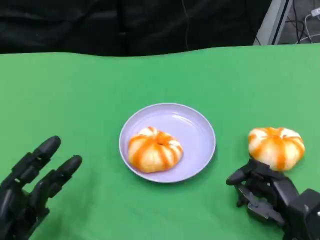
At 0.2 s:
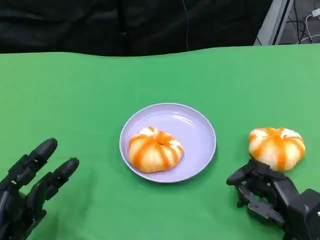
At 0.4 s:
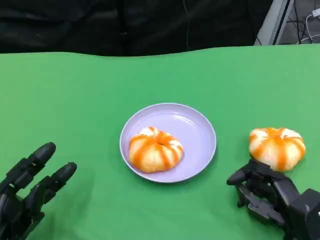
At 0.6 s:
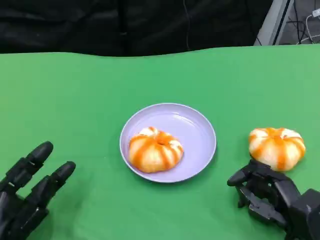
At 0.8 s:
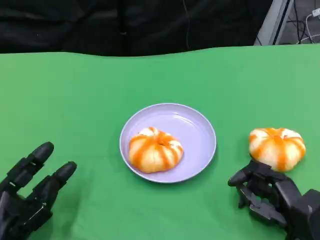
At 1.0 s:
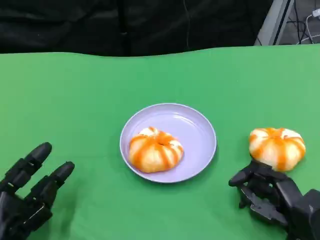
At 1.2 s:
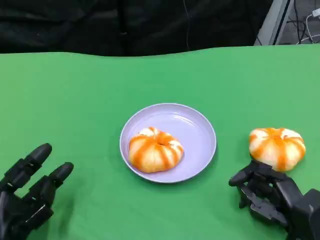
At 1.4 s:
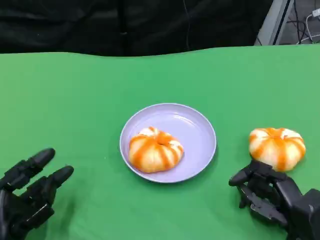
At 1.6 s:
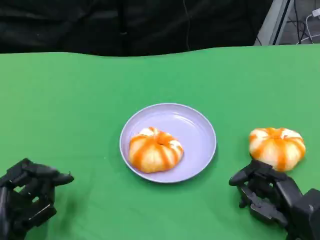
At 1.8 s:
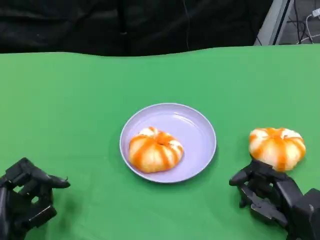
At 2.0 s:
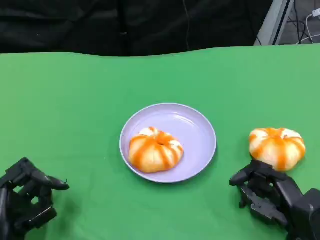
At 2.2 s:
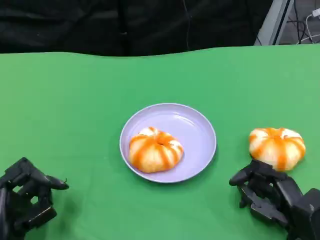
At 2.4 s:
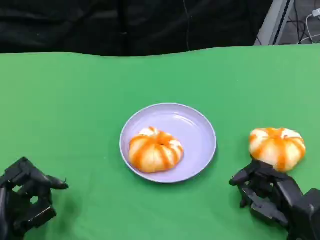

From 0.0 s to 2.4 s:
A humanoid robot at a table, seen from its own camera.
Task of the whole recording: Grasp the bread from the table and place it into the plate.
From 0.0 s to 2.4 s: The hands move only a little.

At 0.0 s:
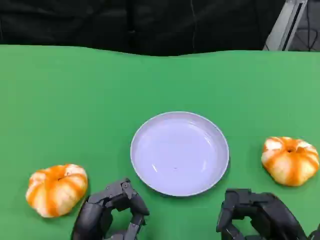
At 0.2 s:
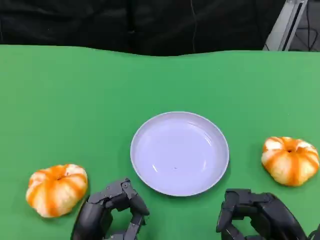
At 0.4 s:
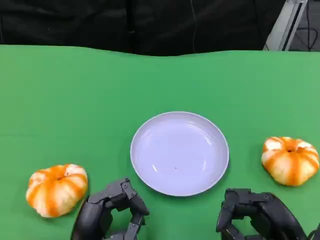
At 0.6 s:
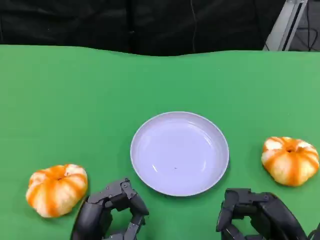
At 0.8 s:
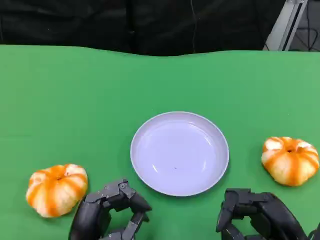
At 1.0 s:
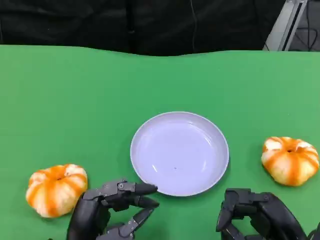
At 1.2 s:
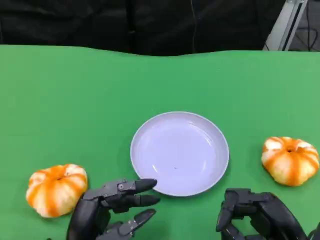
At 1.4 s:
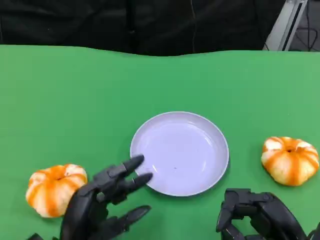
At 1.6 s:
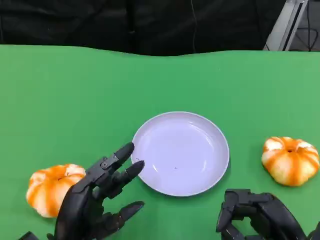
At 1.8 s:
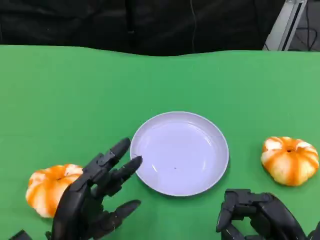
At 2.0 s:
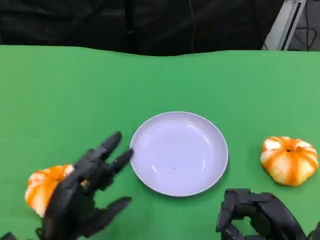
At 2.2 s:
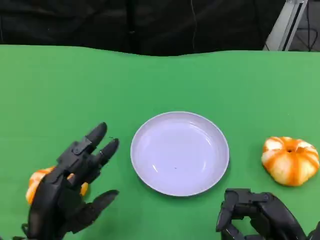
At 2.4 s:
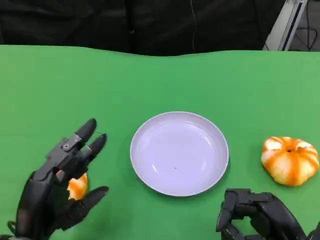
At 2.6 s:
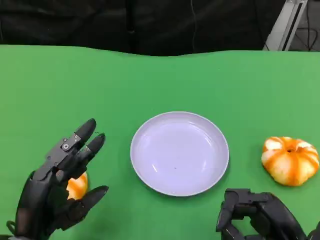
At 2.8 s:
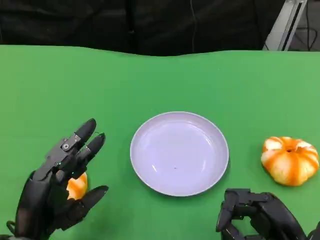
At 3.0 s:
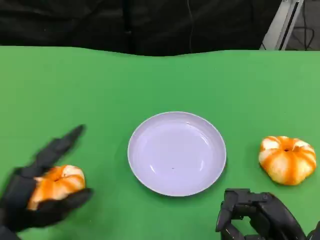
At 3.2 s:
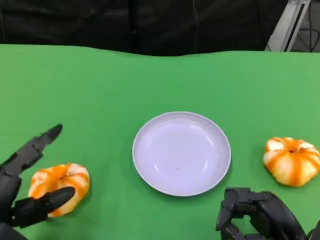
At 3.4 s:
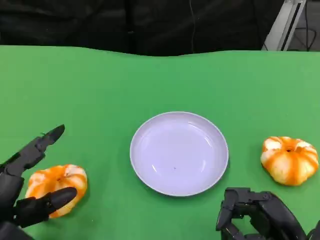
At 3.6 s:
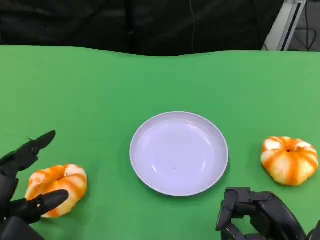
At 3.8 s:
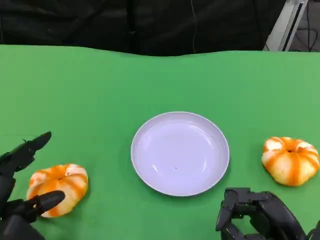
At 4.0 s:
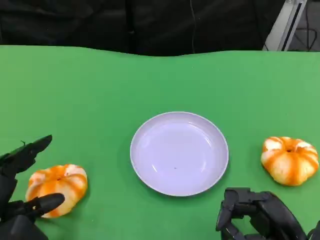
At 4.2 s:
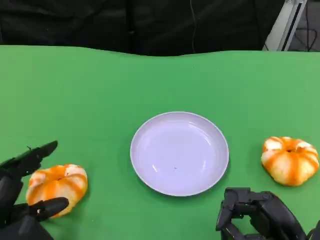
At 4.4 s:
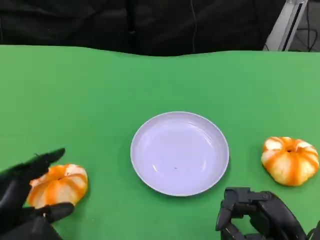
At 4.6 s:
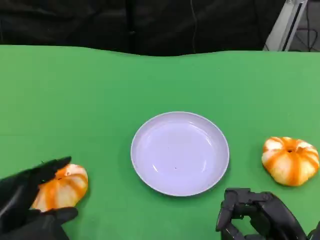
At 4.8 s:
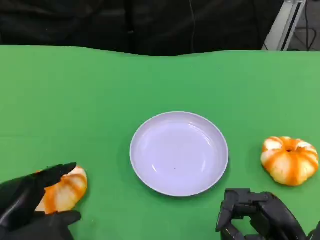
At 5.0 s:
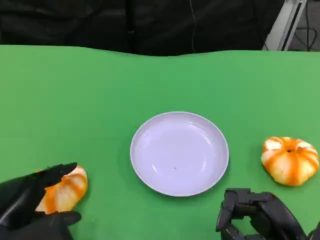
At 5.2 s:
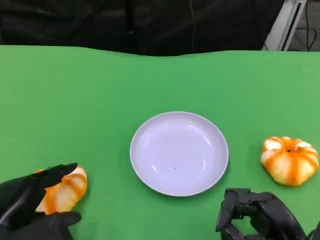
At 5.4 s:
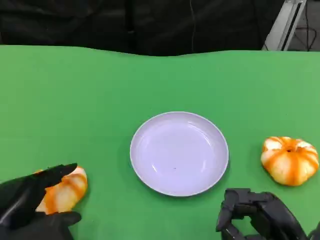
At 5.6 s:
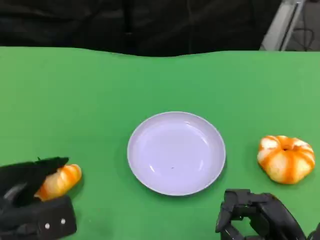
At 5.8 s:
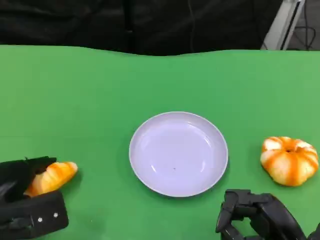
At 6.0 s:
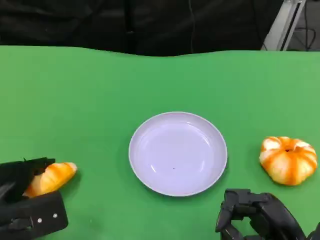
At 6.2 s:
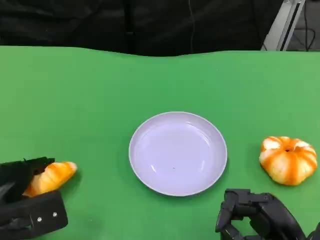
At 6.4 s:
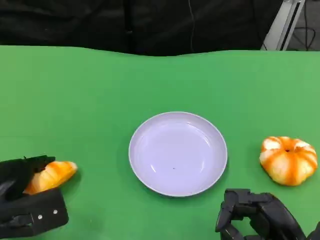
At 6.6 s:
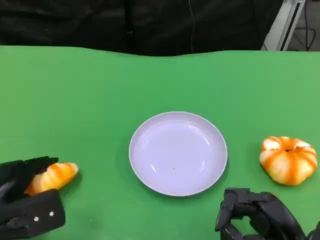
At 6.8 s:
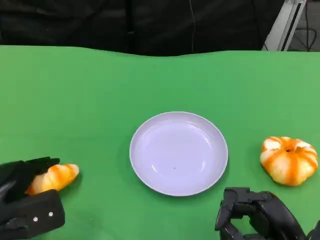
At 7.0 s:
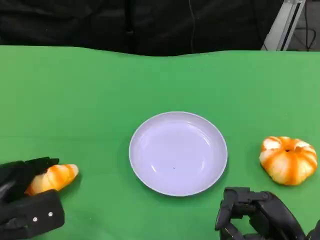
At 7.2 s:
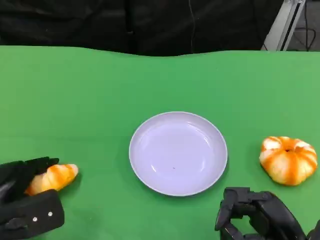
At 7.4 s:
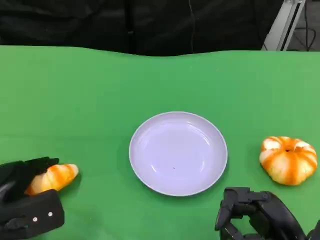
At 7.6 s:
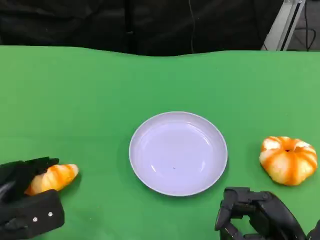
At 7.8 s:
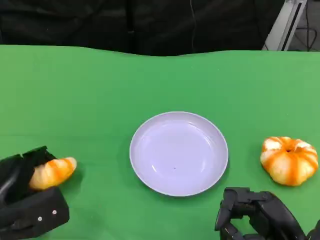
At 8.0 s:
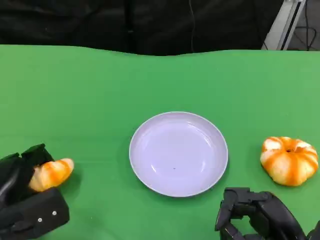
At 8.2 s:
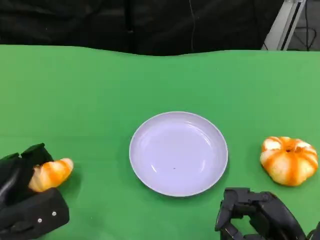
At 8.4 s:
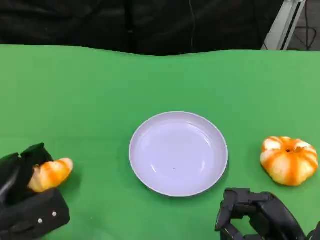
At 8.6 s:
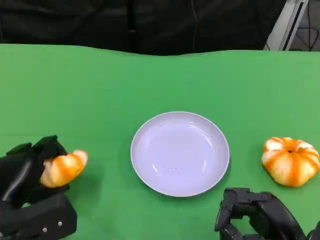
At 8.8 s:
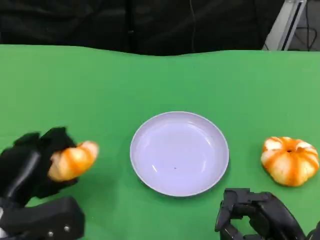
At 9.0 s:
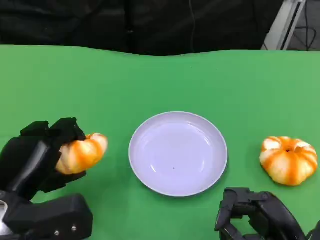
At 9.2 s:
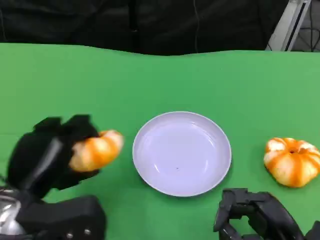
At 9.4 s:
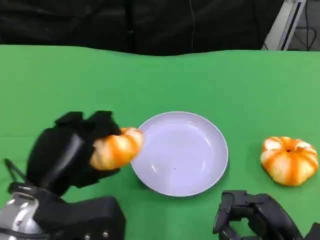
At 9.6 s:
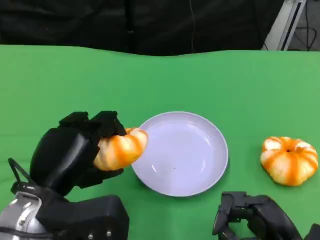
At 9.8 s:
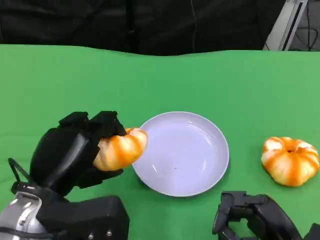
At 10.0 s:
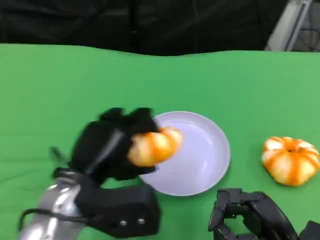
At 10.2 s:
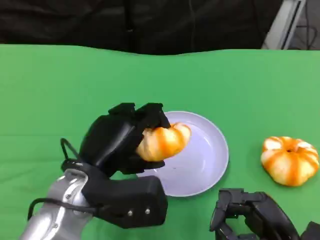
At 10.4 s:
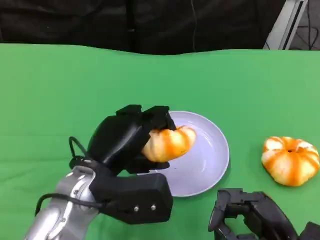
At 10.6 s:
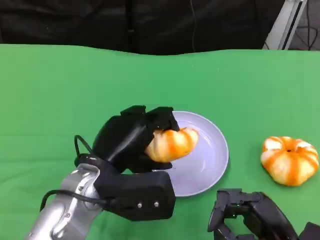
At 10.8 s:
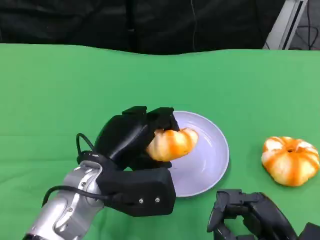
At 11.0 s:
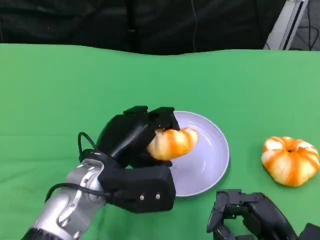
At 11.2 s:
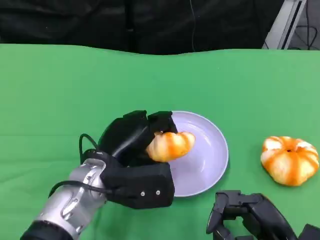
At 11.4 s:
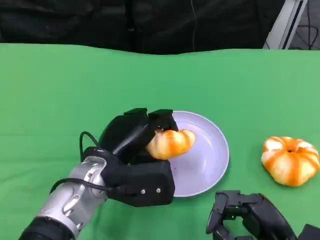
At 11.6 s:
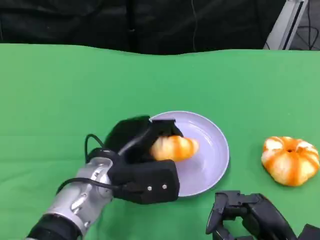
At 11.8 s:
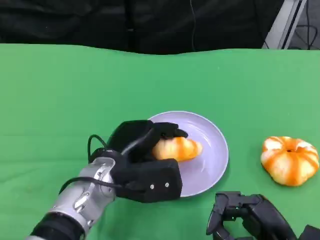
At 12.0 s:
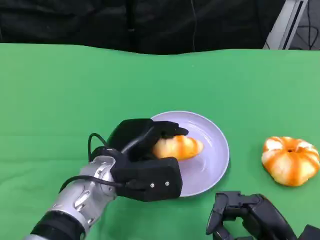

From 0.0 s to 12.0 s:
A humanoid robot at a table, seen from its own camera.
Task of the whole recording: Grasp the bread from the table and place it into the plate.
From 0.0 s to 1.6 s: The hands make only small movements.
From 1.6 s to 3.0 s: The left hand shifts roughly 10 cm to the left and upward.
From 4.4 s to 6.0 s: The left hand heads forward, covering about 5 cm.
From 6.0 s to 7.6 s: There are only small adjustments of the hands.
From 7.6 s to 9.0 s: The left hand is displaced upward by approximately 5 cm.
From 9.0 s to 10.4 s: The left hand travels to the right by roughly 10 cm.
From 10.4 s to 12.0 s: The left hand changes place by about 5 cm.

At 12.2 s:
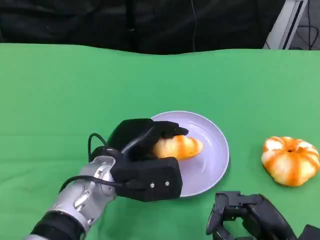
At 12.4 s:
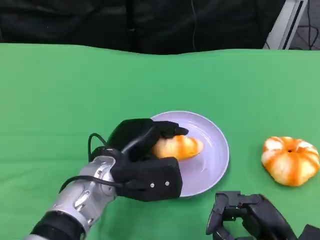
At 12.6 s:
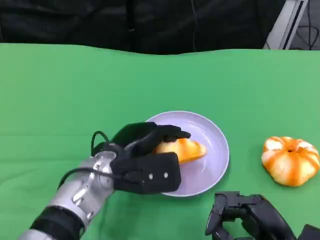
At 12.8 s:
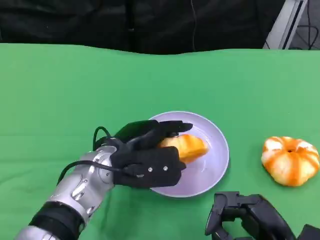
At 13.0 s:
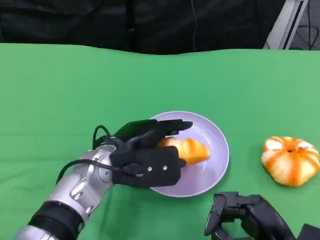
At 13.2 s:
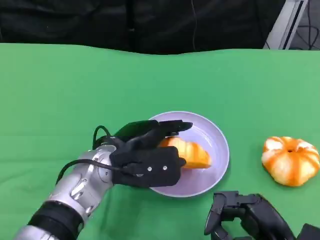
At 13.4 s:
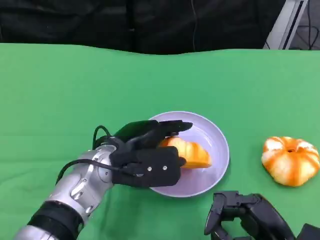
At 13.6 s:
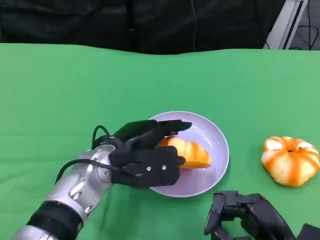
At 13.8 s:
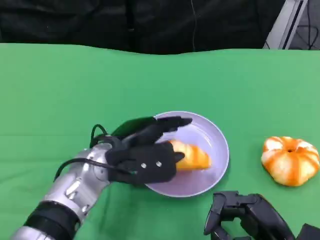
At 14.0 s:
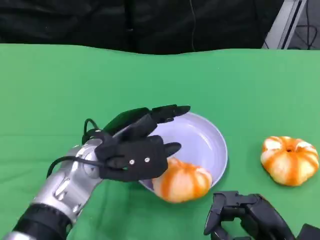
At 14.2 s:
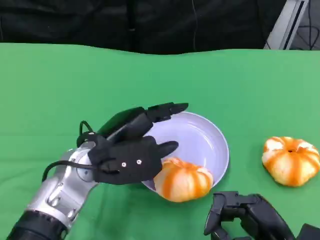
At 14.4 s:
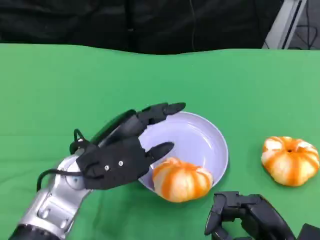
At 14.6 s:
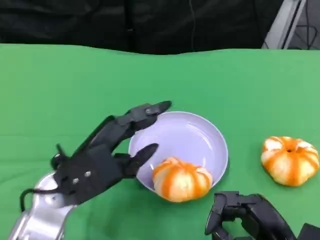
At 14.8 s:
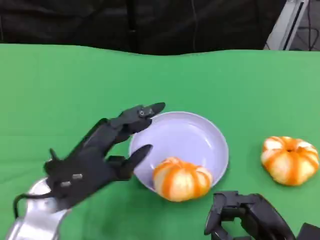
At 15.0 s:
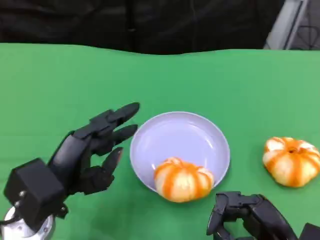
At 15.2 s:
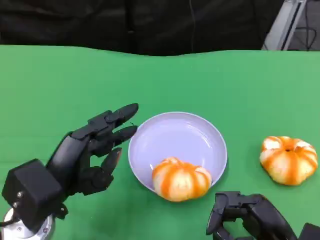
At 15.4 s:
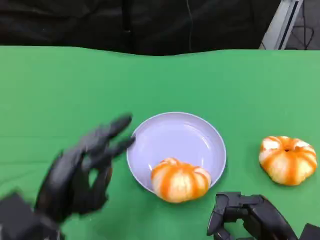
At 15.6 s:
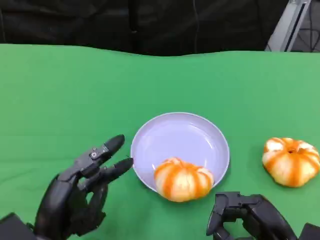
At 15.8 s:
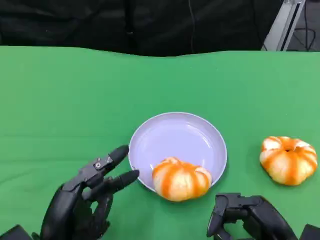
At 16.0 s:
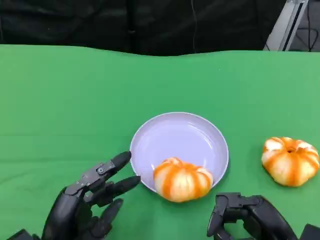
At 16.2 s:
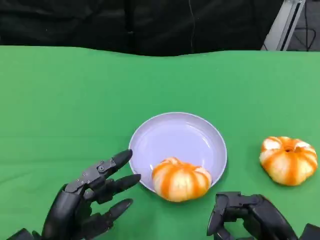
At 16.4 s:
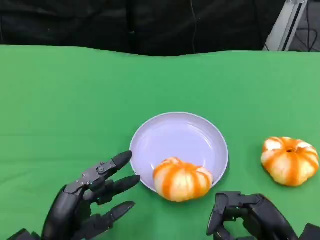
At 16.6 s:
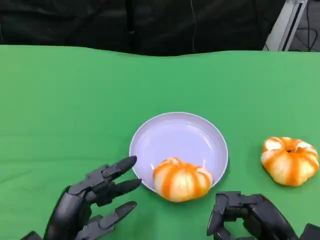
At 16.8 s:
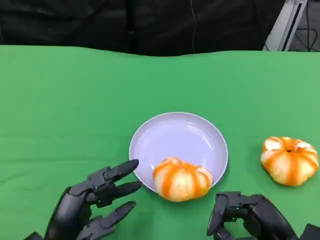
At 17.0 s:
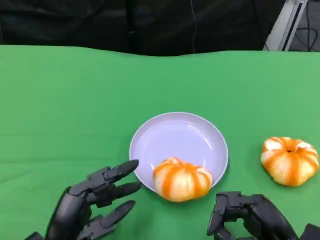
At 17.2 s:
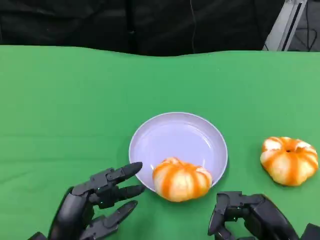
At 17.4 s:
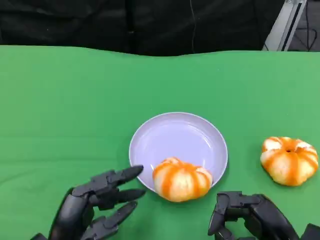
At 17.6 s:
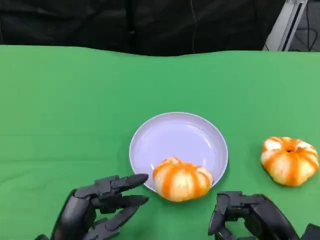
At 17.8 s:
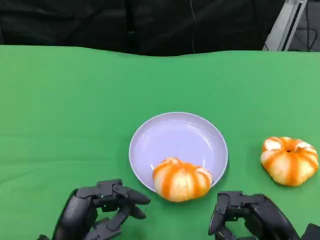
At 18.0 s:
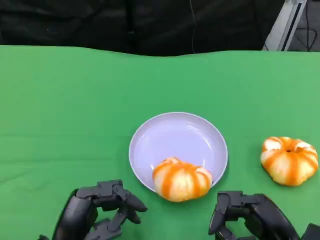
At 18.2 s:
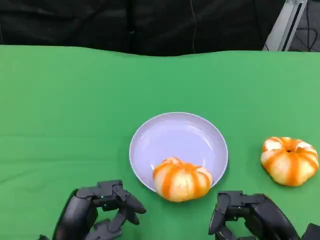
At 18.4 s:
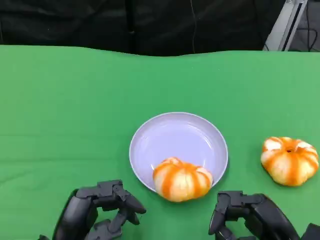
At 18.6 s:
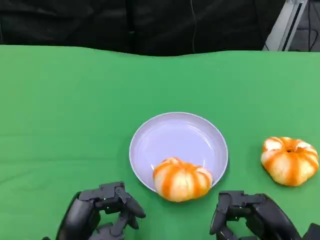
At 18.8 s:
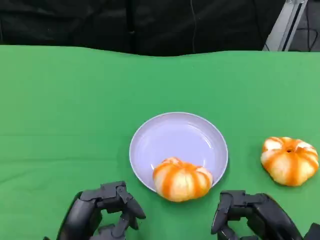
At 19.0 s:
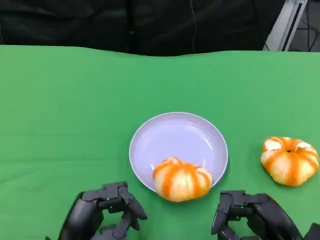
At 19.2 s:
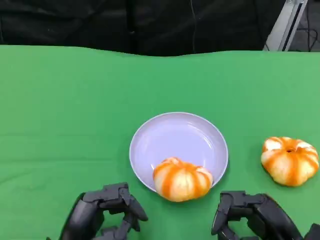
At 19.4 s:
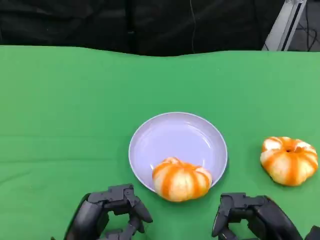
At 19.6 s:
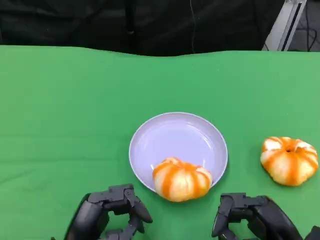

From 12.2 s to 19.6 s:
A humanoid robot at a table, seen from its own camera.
Task of the whole recording: Grasp the bread from the table and place it into the plate.
From 12.2 s to 13.6 s: There are only small adjustments of the hands.
From 13.6 s to 15.2 s: The left hand is displaced to the left and backward by roughly 10 cm.
From 15.2 s to 16.6 s: The left hand moves downward, some 5 cm.
From 16.6 s to 18.2 s: Both hands stay put.
From 18.2 s to 19.6 s: Both hands stay about where they are.
